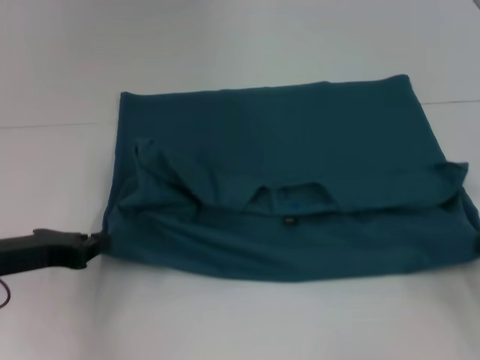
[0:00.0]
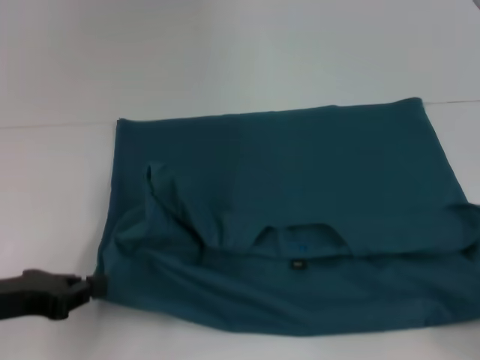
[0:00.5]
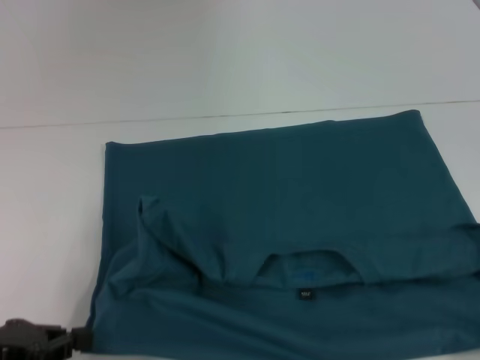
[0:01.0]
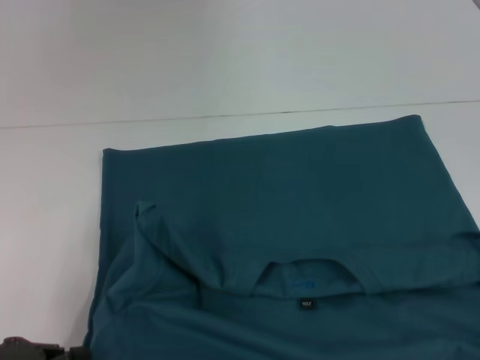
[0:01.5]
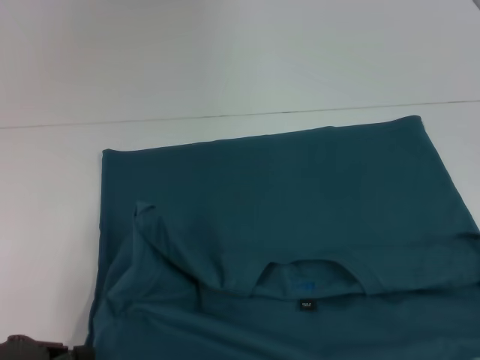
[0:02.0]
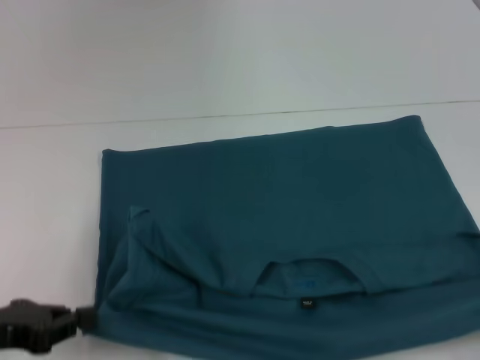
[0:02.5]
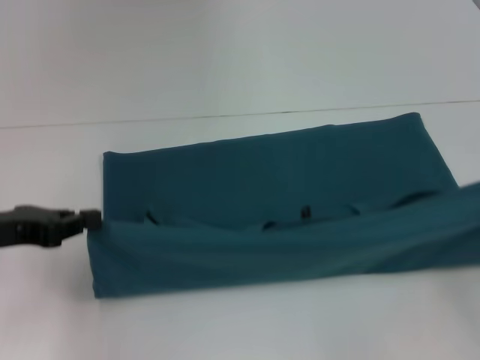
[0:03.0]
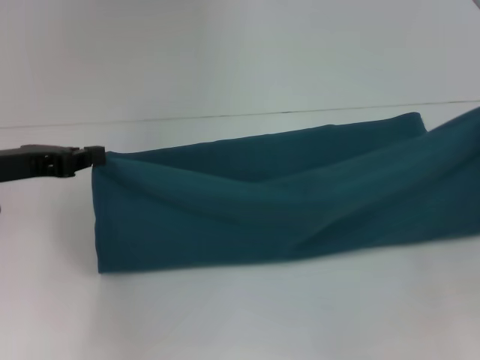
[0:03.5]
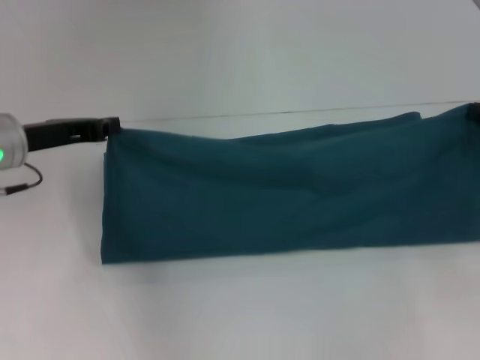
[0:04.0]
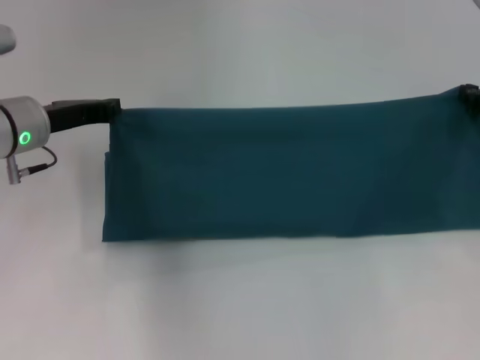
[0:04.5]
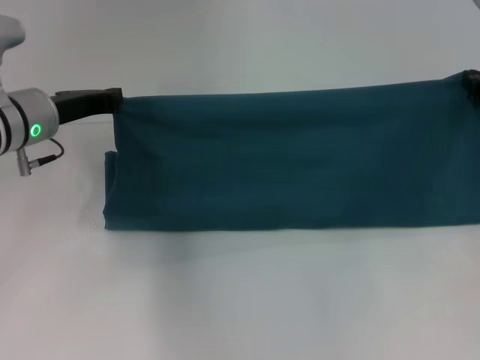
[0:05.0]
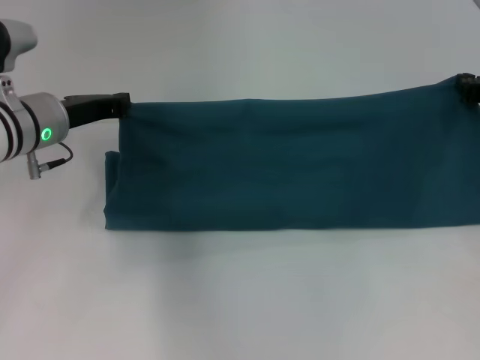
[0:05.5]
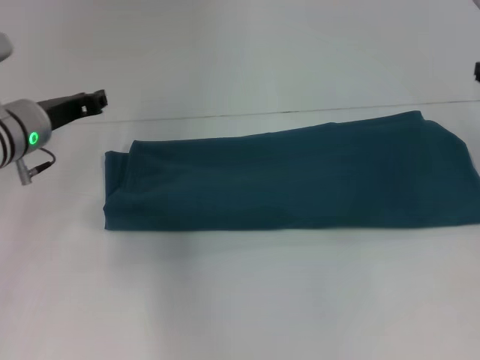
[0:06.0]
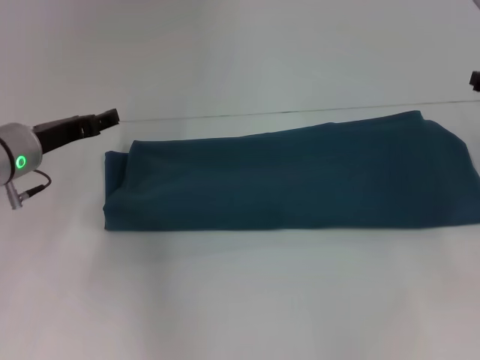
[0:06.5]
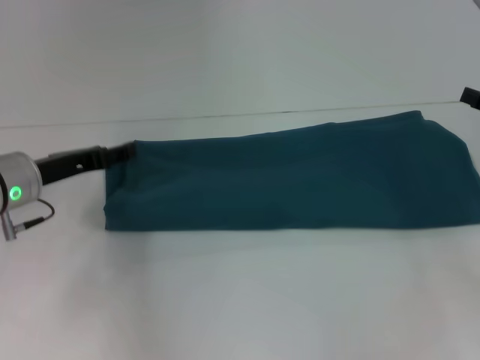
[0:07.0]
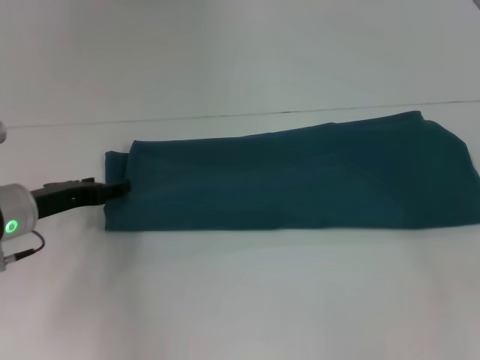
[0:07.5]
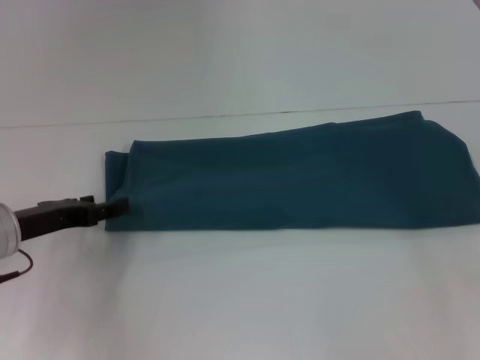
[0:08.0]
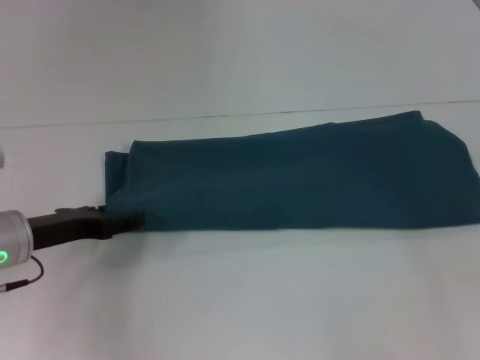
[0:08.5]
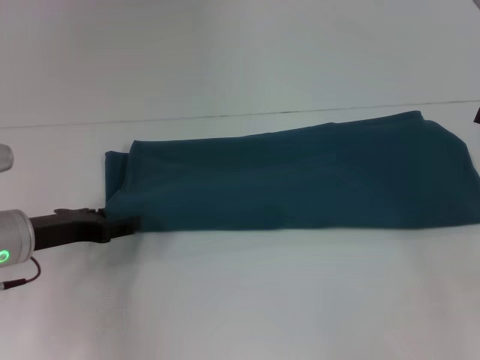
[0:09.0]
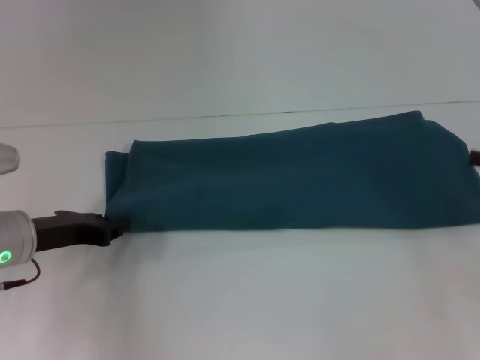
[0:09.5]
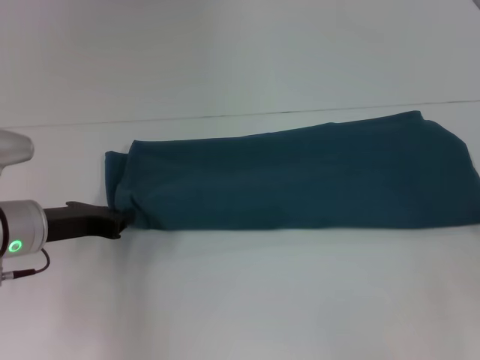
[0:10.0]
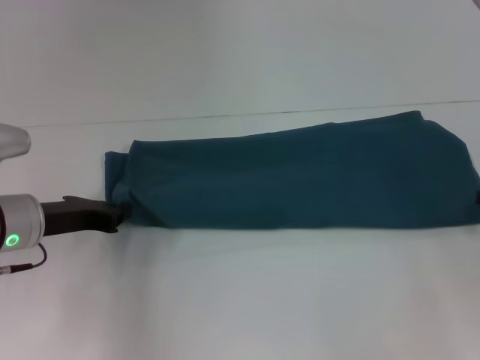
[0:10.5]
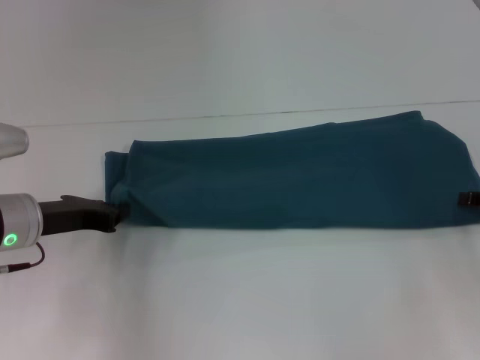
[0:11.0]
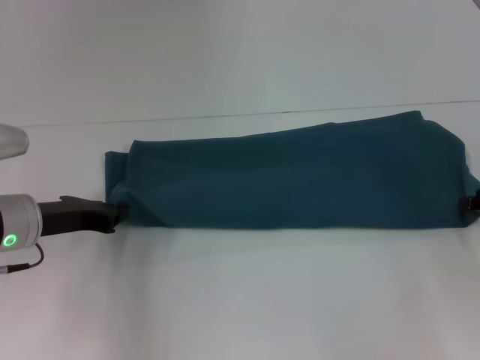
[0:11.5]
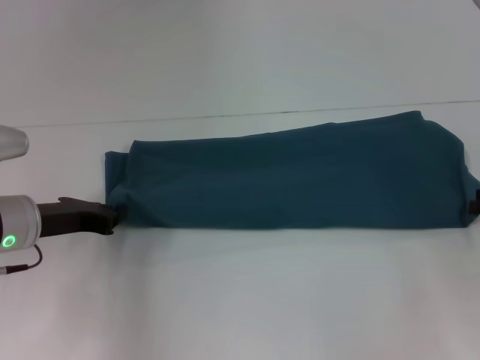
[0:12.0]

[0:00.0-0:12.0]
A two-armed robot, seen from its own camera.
Step, 0:00.0 to 0:02.0: Pull the clothes with your left hand.
Step, 0:00.0 to 0:02.0: Pull the clothes with your right hand.
Step, 0:02.5 to 0:06.0: Fold the clothes to the right.
0:00.0 to 0:02.0: Both grippers travel together backward, approximately 10 cm.
0:02.0 to 0:04.0: Both grippers move forward, about 20 cm.
0:04.0 to 0:06.0: The right gripper moves some 5 cm.
0:06.0 to 0:08.0: Both grippers move backward, approximately 10 cm. The left gripper opens its fingers. The right gripper opens up.
0:08.0 to 0:10.0: The left gripper closes its fingers.

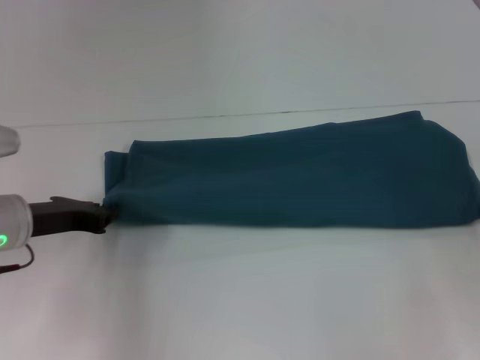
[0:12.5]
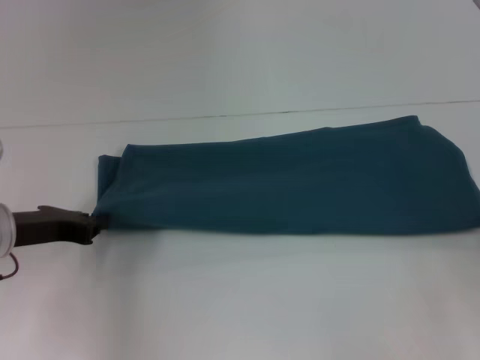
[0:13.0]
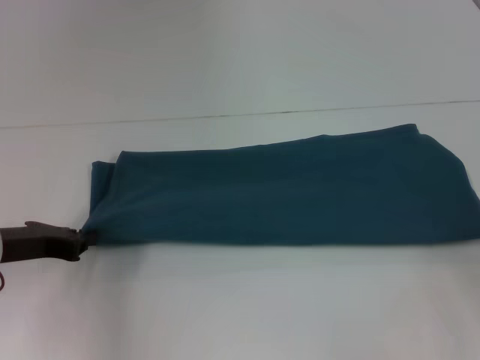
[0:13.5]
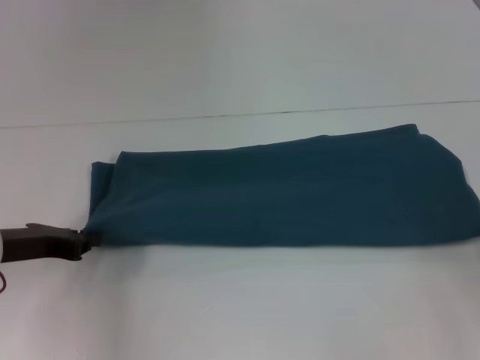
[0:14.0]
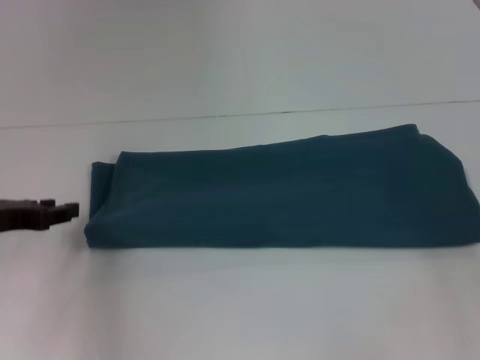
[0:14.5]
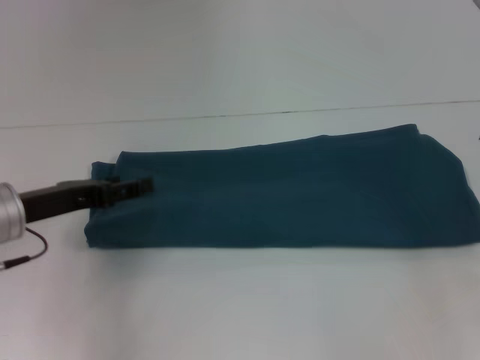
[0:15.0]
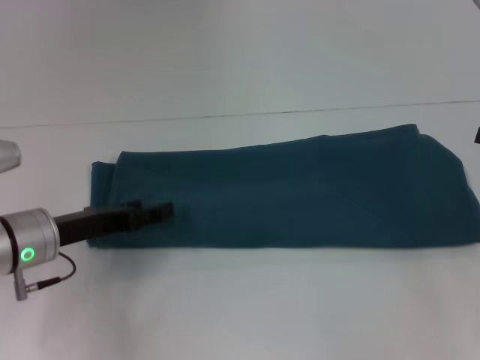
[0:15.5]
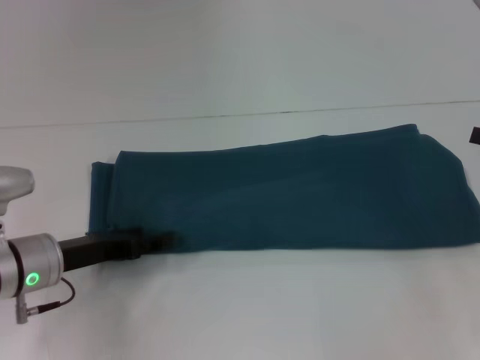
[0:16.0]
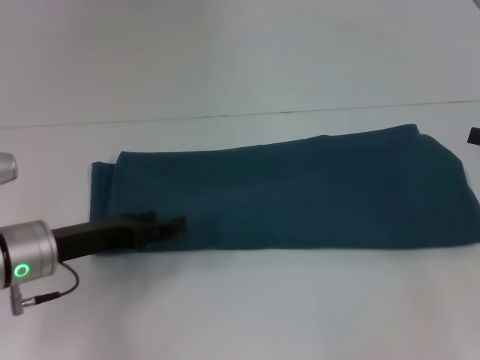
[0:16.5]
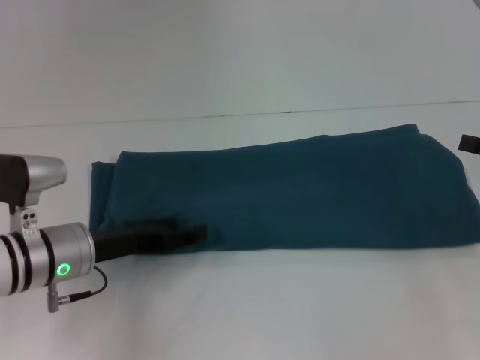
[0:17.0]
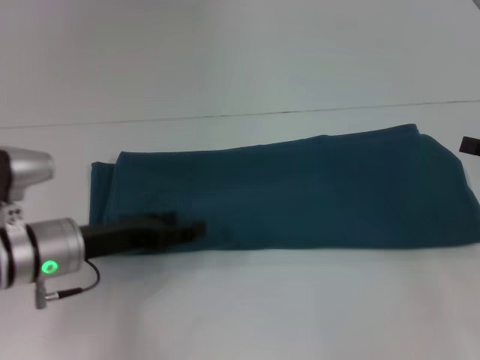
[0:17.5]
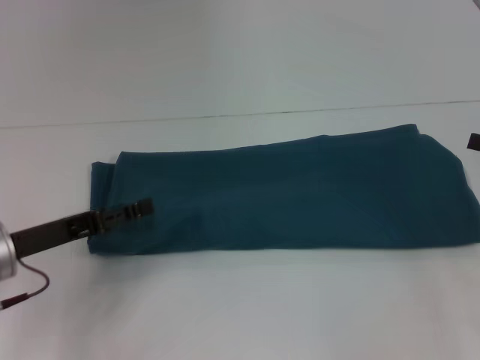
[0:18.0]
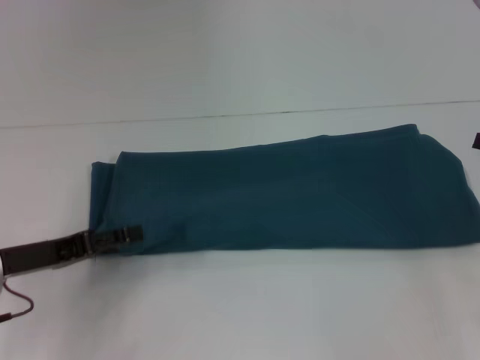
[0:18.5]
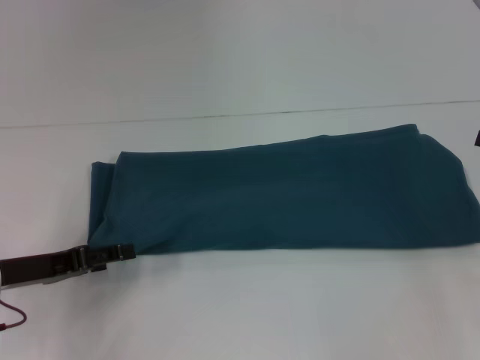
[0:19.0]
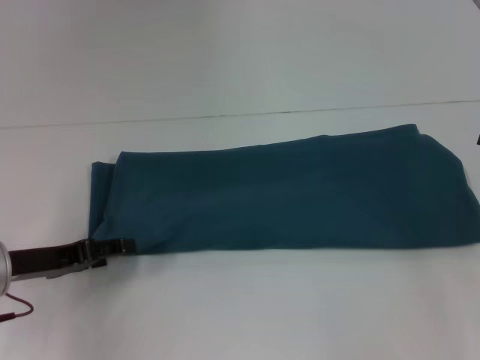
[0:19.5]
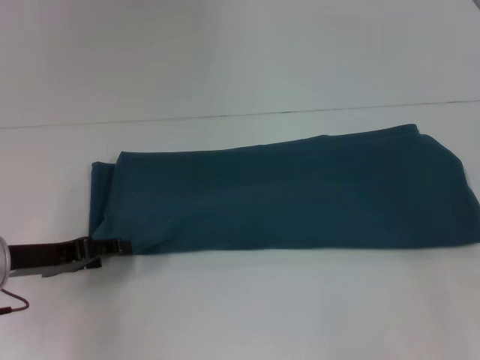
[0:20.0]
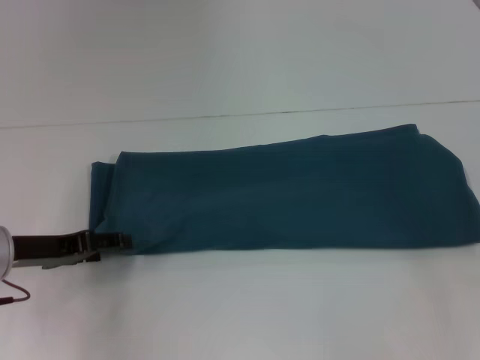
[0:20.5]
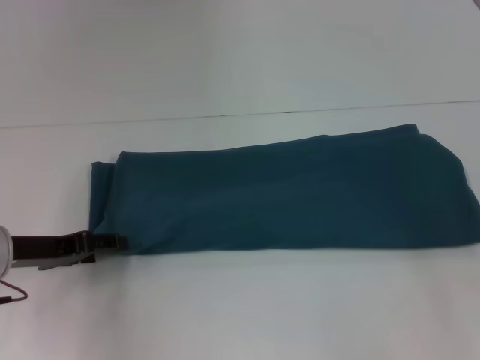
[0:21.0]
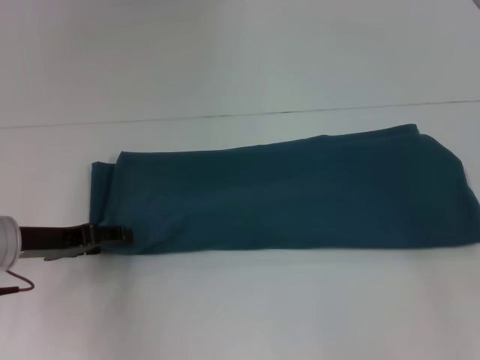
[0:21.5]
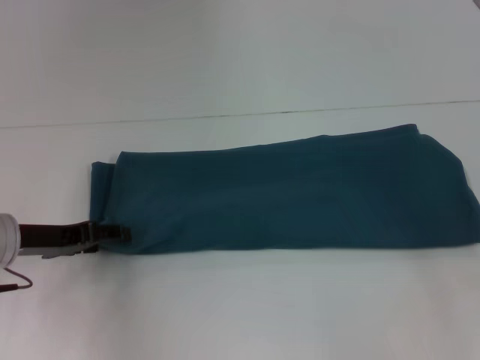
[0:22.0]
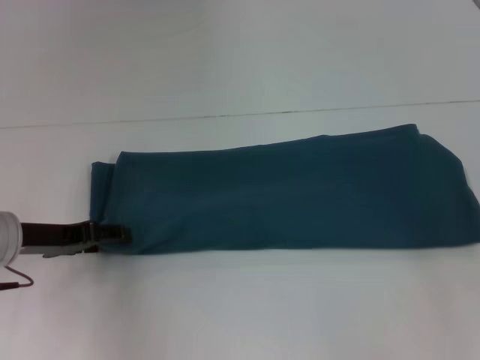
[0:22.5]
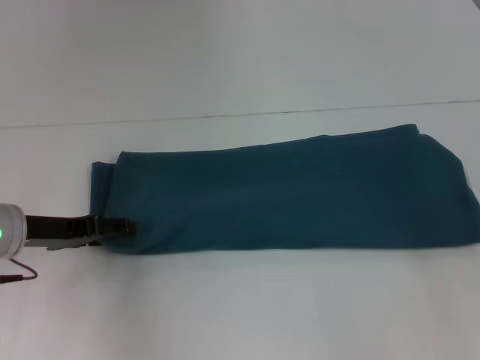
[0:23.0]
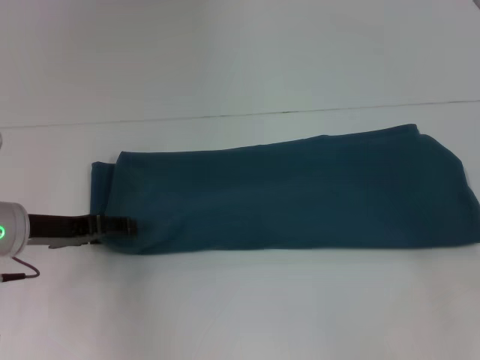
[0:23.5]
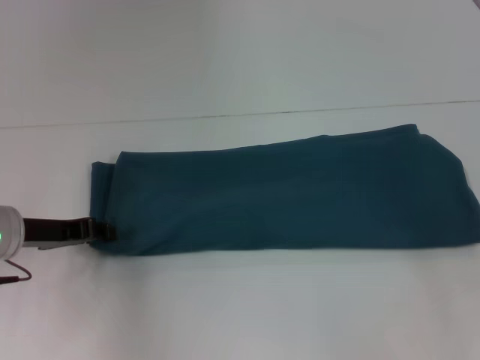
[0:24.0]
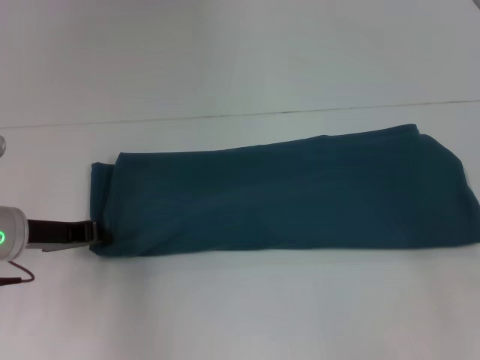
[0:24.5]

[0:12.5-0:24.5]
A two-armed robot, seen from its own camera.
0:12.5 to 0:14.5: The right gripper moves some 5 cm, while the left gripper changes place by approximately 5 cm.
0:14.5 to 0:16.5: The left gripper goes roughly 5 cm to the right, and opens.
0:18.5 to 0:22.5: There are only small adjustments of the grippers.
0:22.5 to 0:24.5: The left gripper closes.

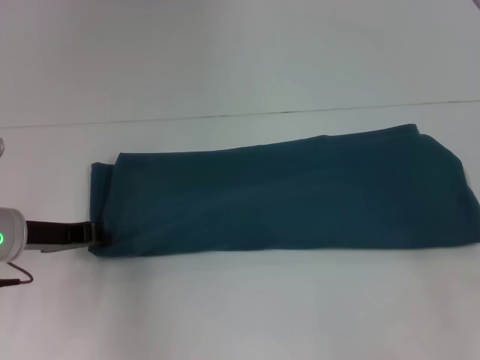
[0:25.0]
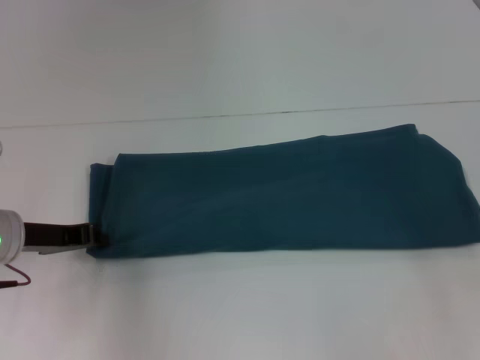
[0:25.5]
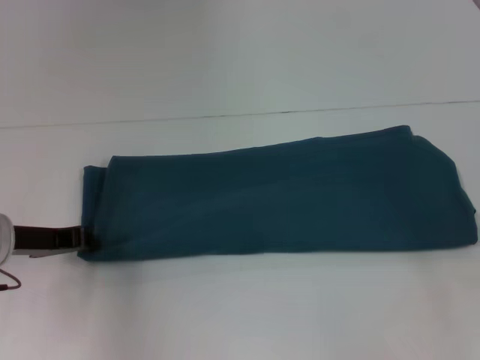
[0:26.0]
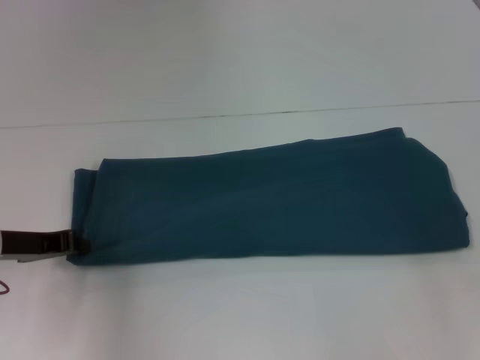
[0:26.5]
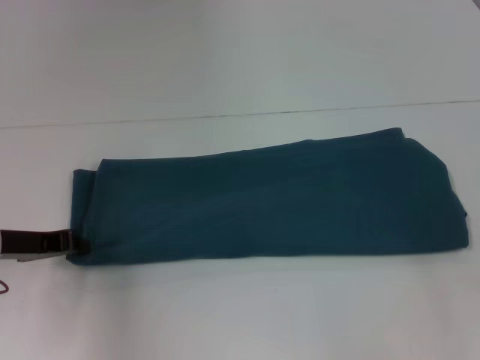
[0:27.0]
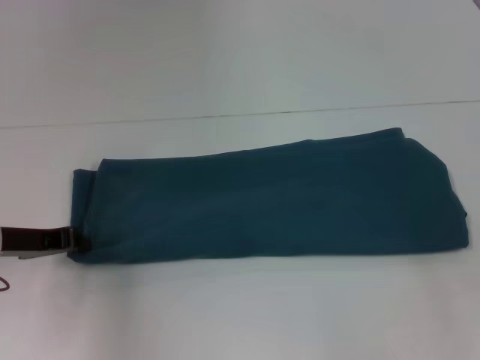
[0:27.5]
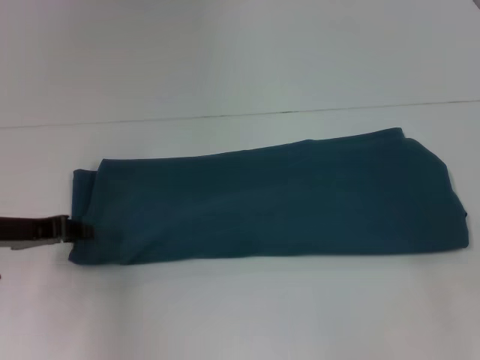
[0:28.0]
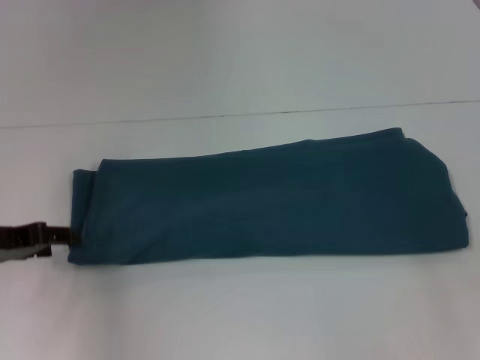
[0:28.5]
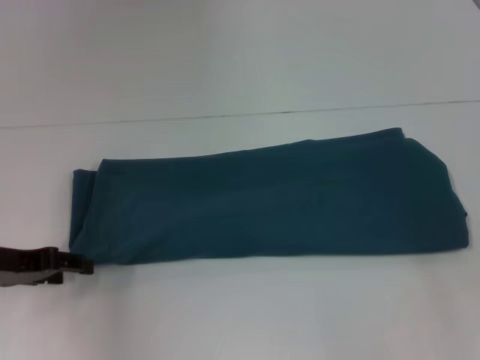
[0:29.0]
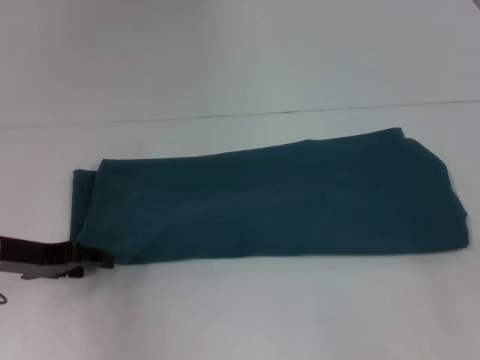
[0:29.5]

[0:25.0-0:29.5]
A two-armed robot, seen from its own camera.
0:25.0 to 0:27.0: The grippers move only a little.
0:27.0 to 0:29.5: The left gripper opens.
